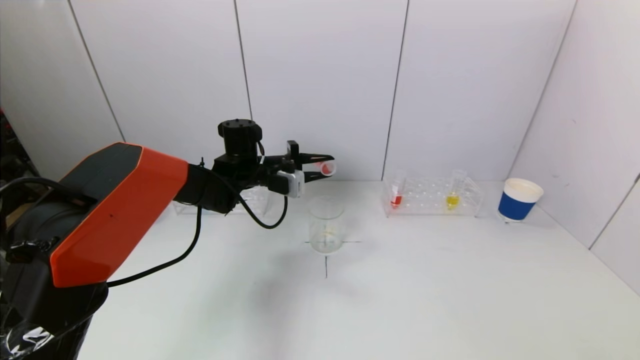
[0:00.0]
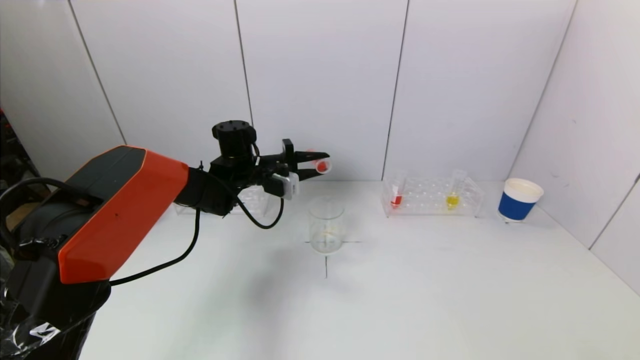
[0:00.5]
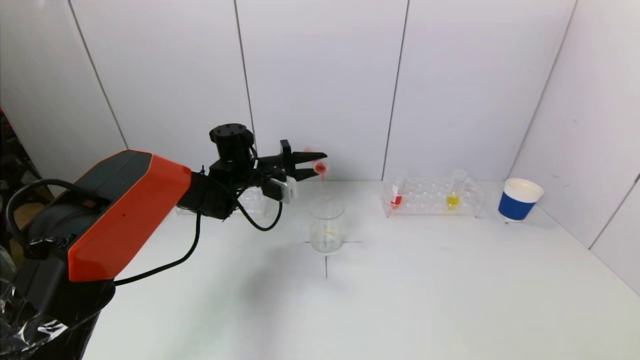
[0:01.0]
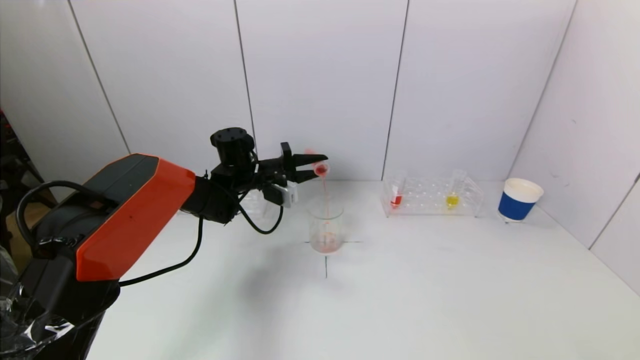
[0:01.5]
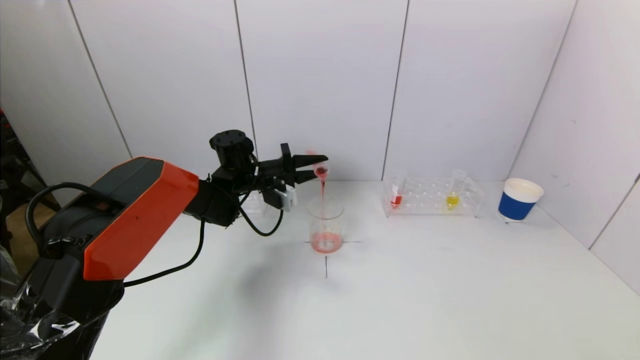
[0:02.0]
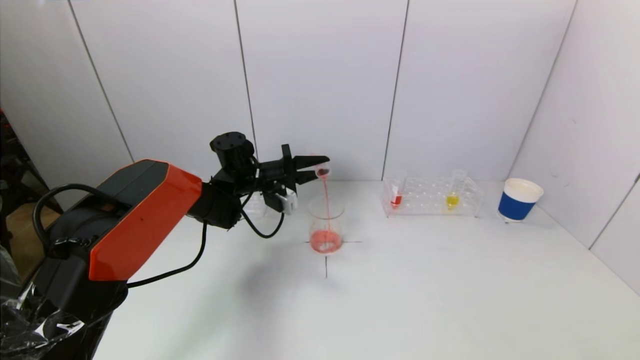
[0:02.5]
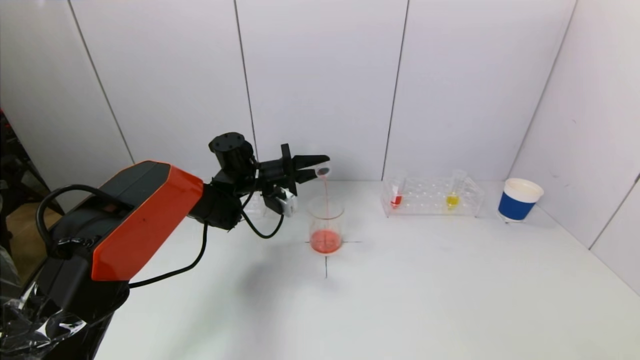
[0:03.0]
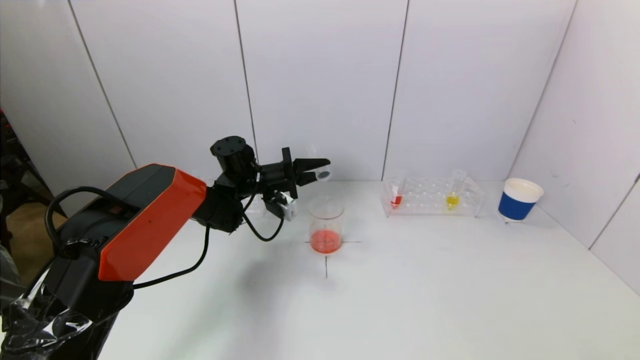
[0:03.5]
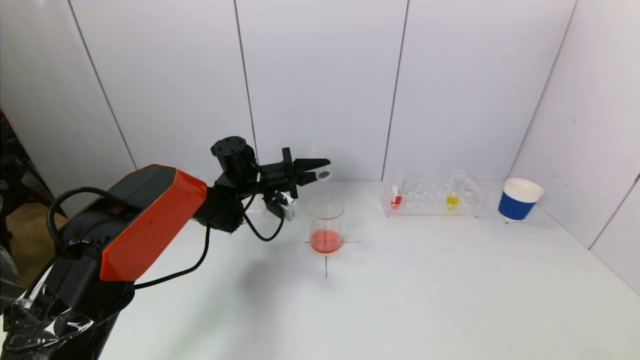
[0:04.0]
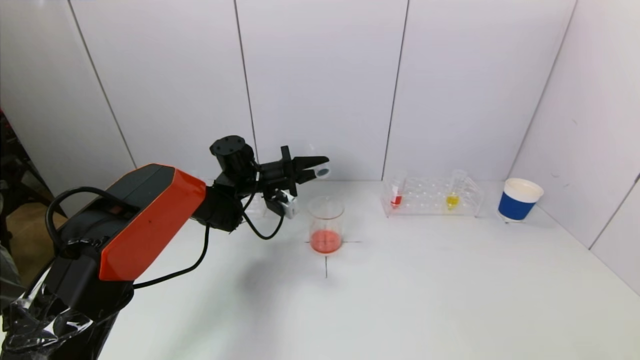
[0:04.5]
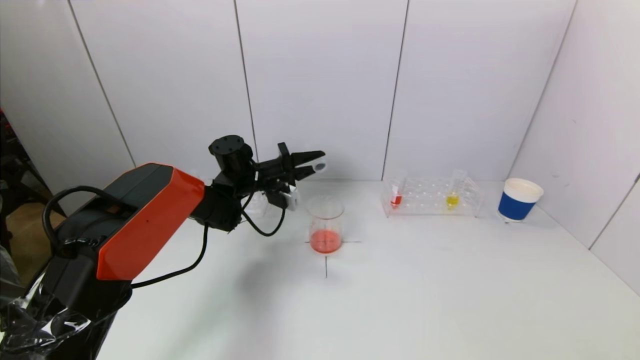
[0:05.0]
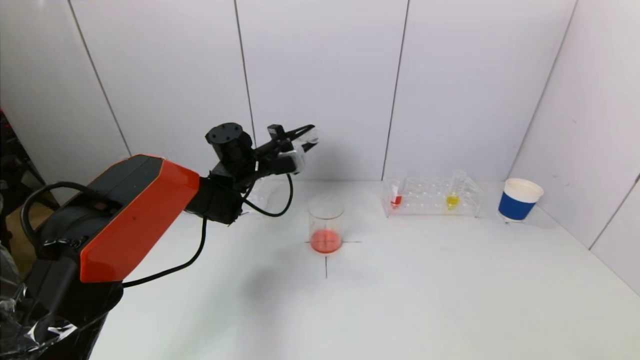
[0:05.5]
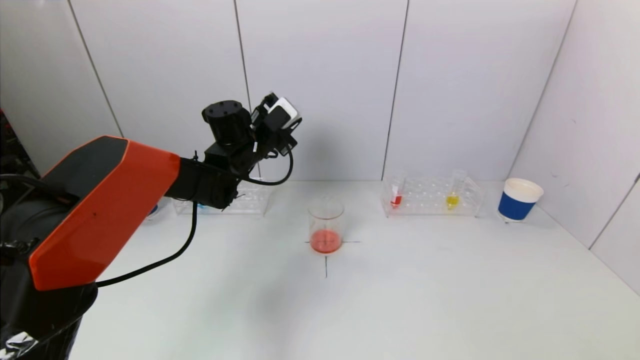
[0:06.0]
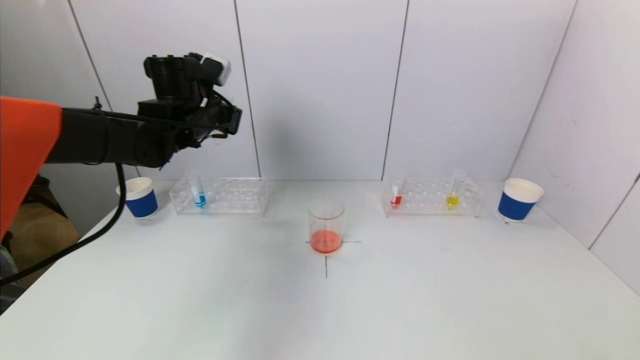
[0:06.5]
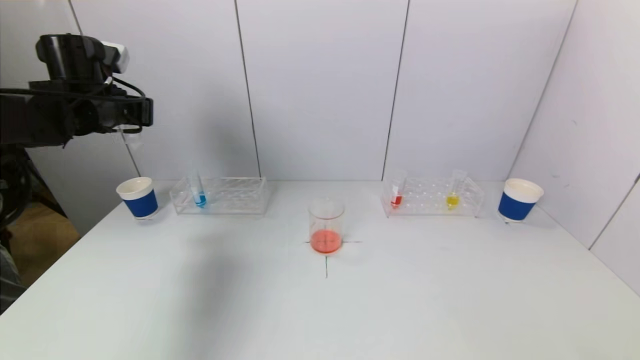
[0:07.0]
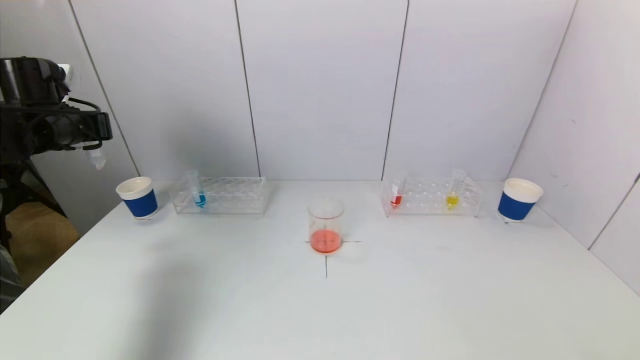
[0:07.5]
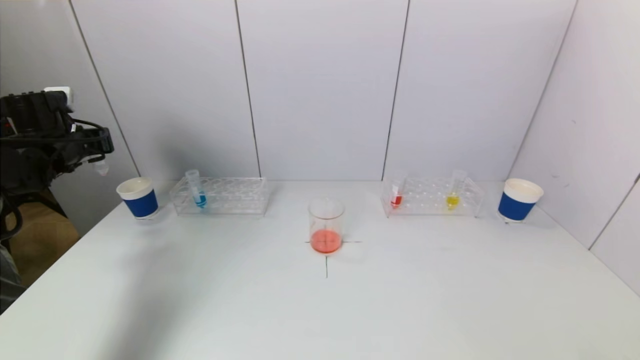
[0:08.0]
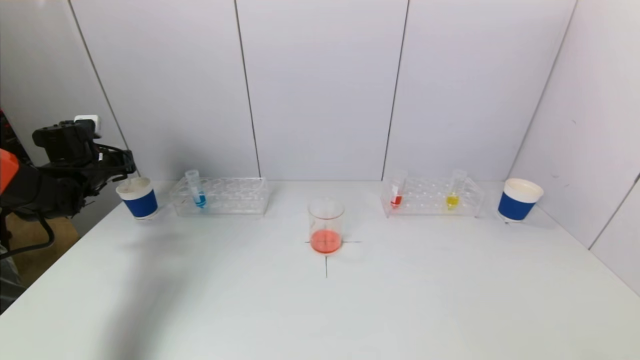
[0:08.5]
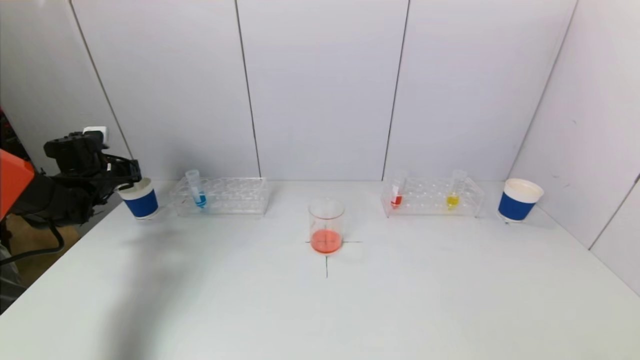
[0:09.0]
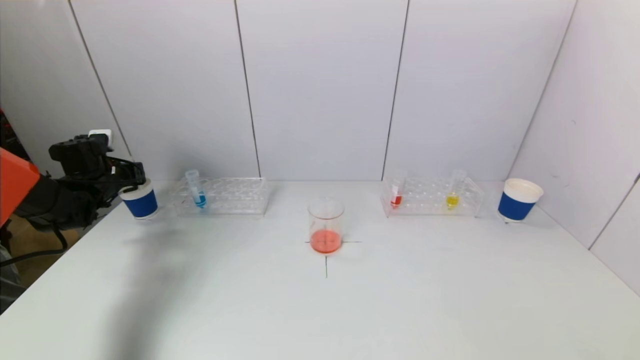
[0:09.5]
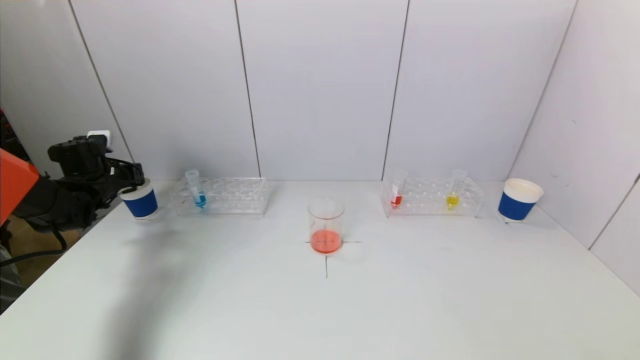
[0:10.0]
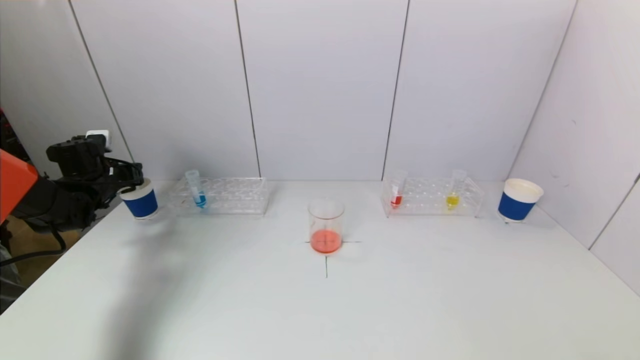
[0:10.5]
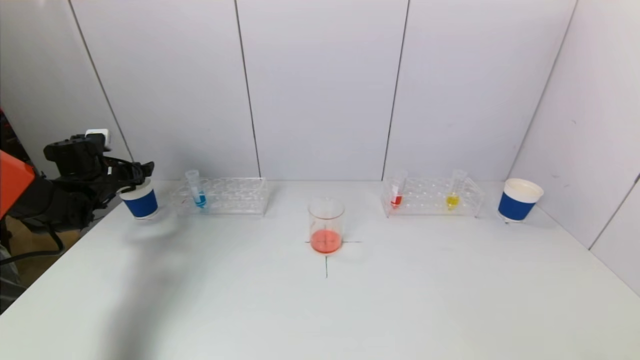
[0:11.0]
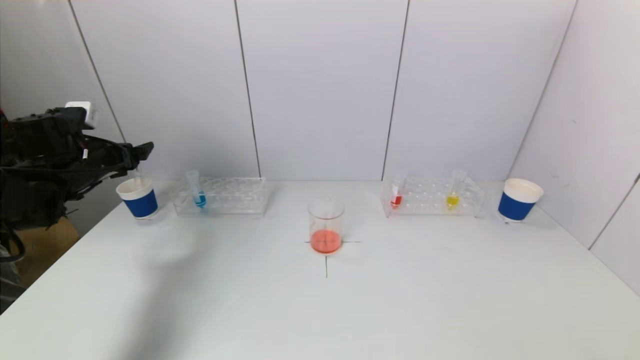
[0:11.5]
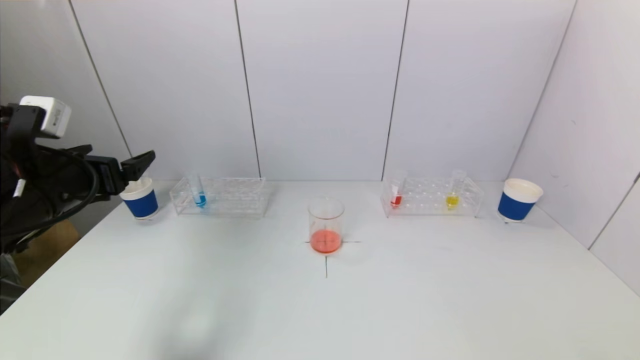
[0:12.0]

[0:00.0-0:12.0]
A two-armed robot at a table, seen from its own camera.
Task of the whole recording: pick up a test tube with pigment on left test tube rack and a test tube with pigment on right test tube rack by grippers and pour them into the beaker.
Step, 0:00.0 to 0:03.0: Pour the red reagent into the graduated cylinder with the left gripper.
Step, 0:03.5 to 0:10.5: Place the test tube into the paper cup with the left gripper.
0:00.0 to 0:02.0: There are only small adjustments of the grippers.
0:02.0 to 0:04.0: There are only small adjustments of the grippers.
0:04.0 to 0:06.0: The left gripper moves upward, about 10 cm.
0:06.0 to 0:08.0: The left gripper moves to the left, roughly 30 cm.
0:08.0 to 0:10.0: The left gripper goes approximately 10 cm downward.
0:10.0 to 0:12.0: The left gripper moves backward, to the right and upward, about 25 cm, and opens up.

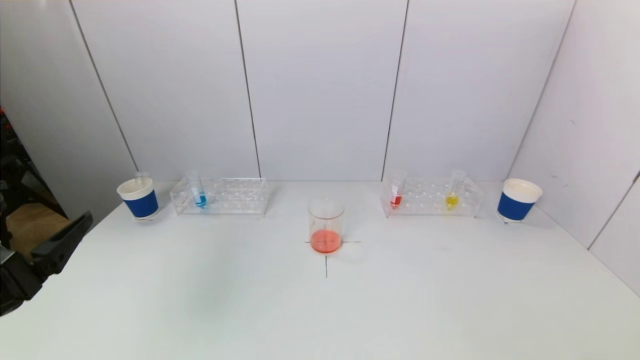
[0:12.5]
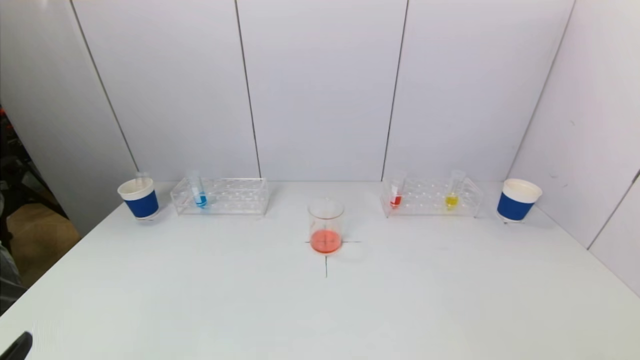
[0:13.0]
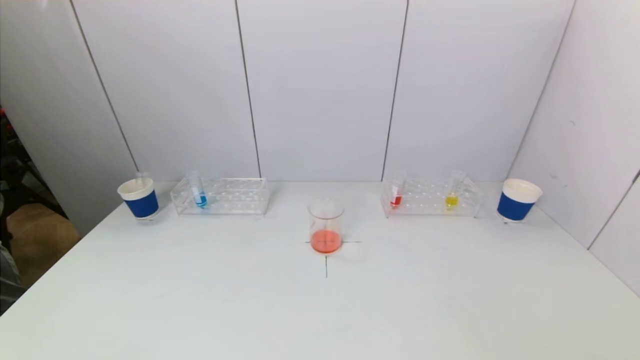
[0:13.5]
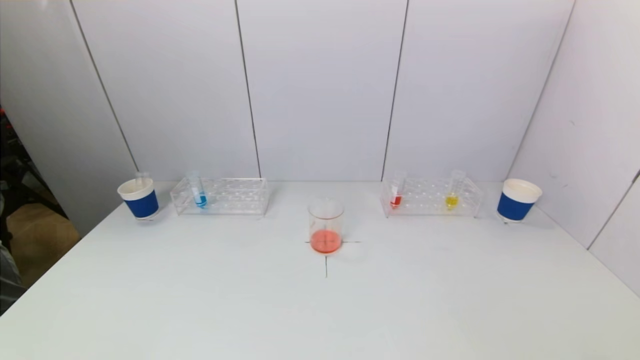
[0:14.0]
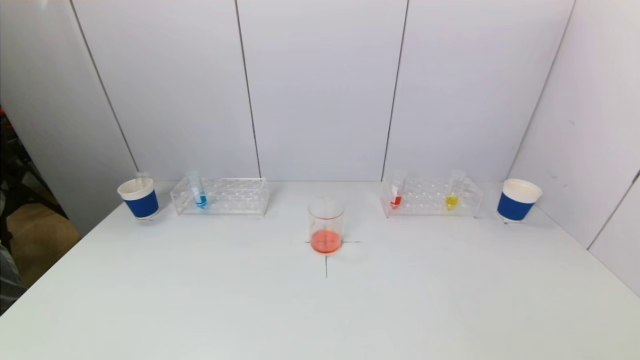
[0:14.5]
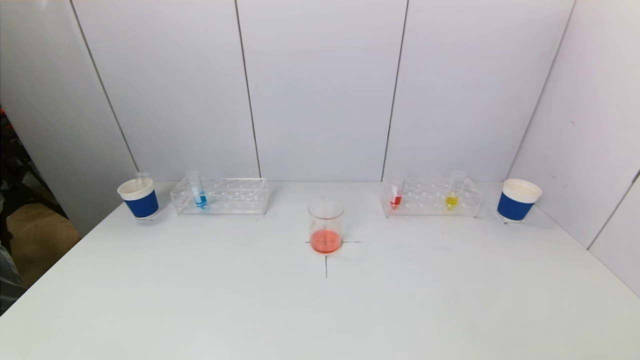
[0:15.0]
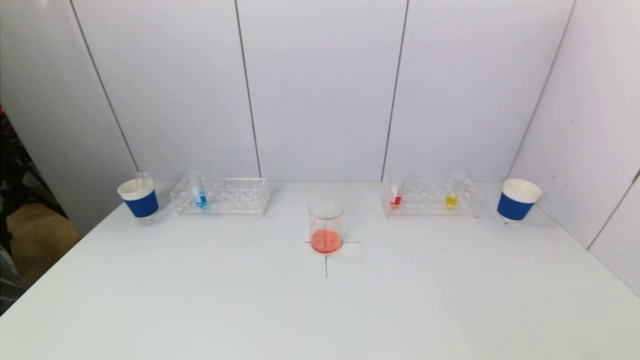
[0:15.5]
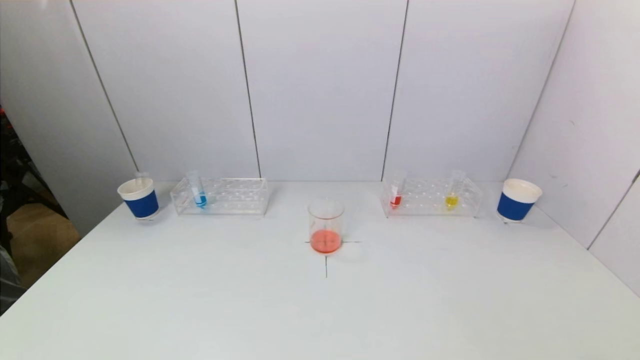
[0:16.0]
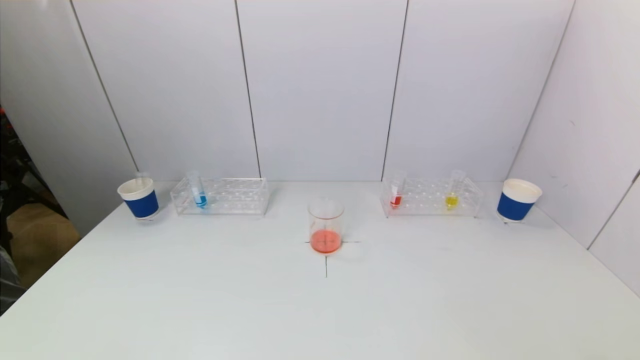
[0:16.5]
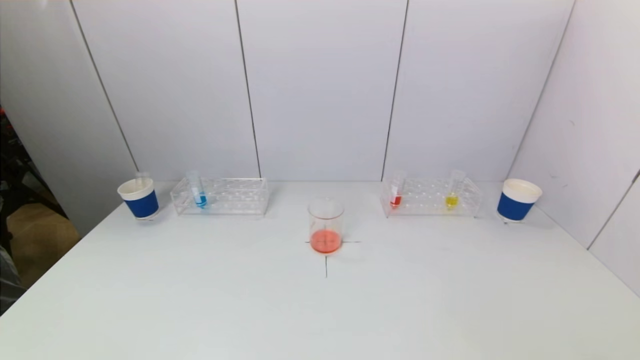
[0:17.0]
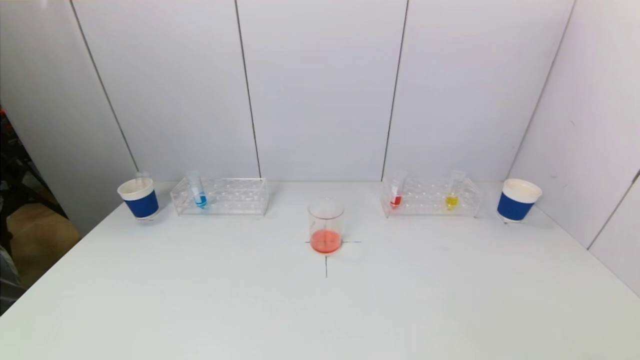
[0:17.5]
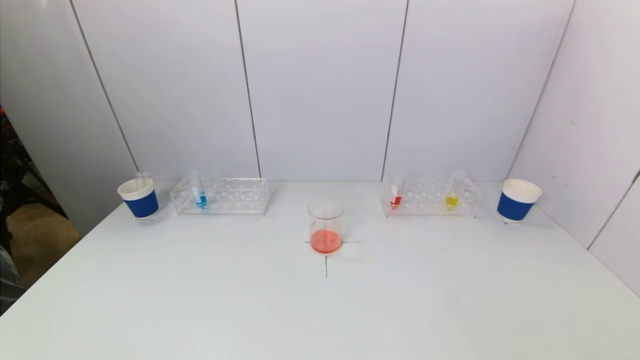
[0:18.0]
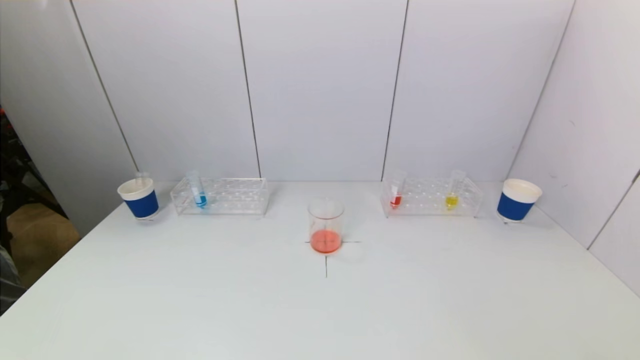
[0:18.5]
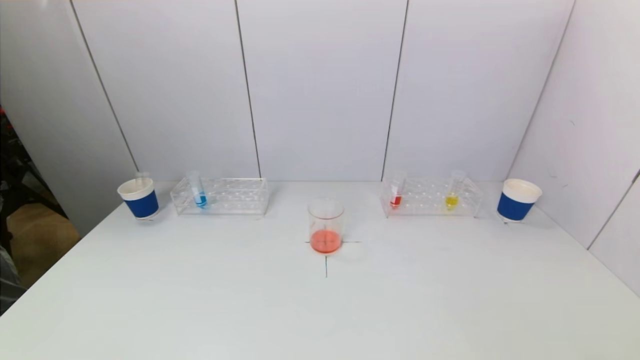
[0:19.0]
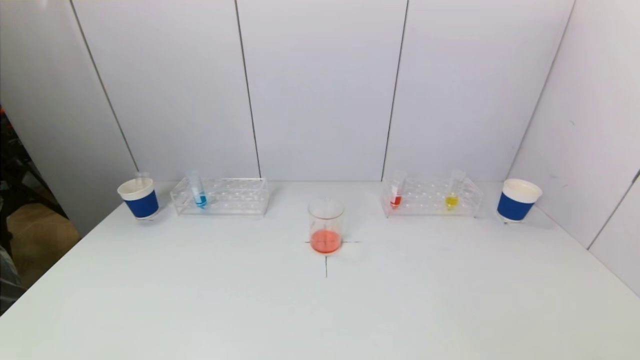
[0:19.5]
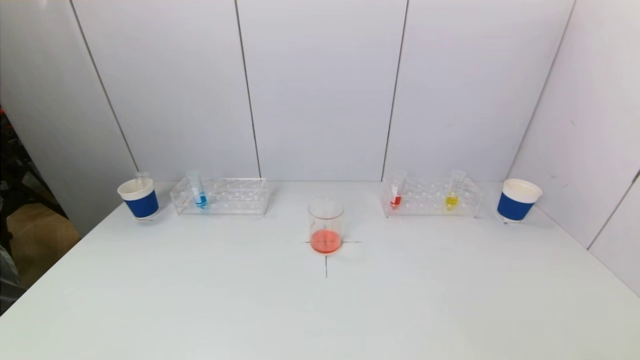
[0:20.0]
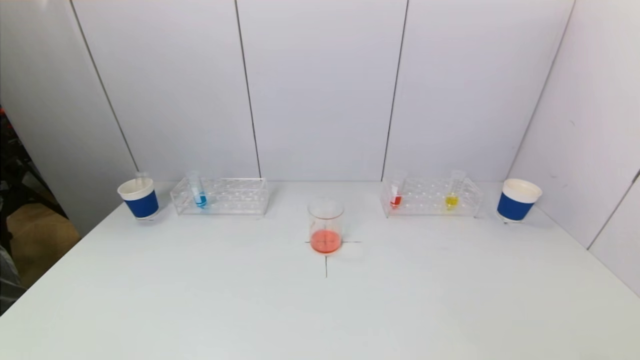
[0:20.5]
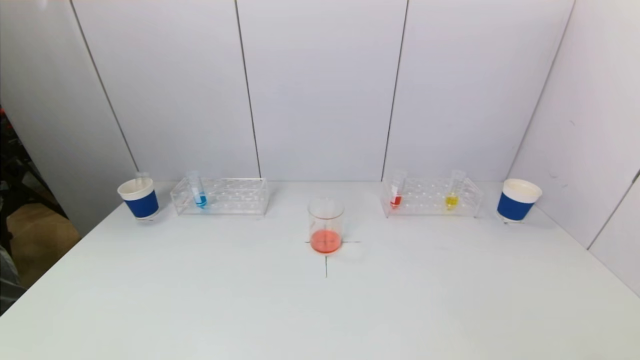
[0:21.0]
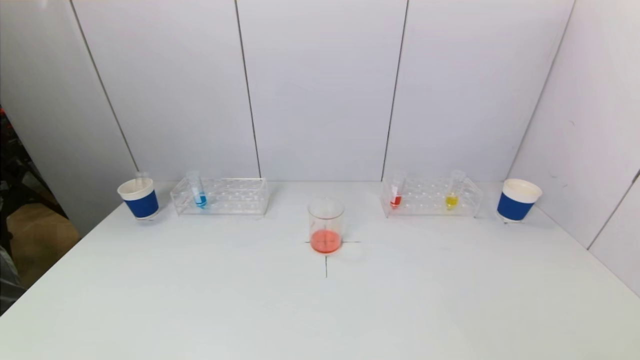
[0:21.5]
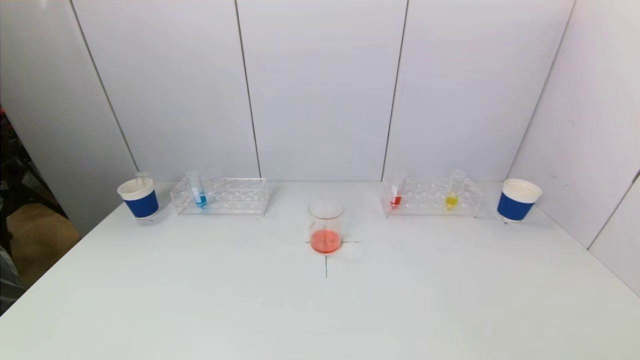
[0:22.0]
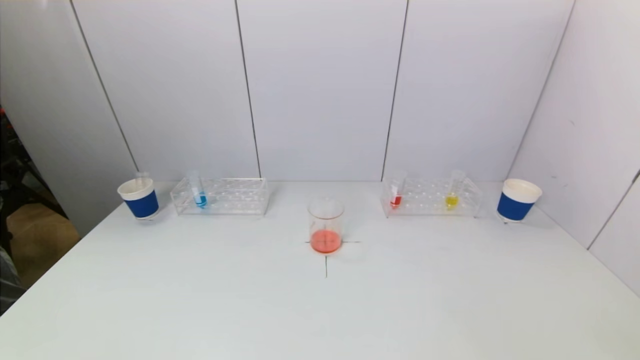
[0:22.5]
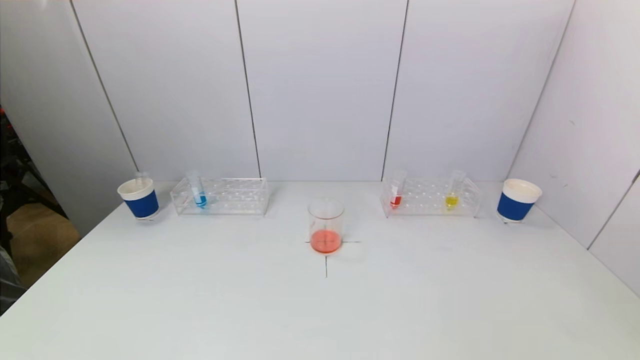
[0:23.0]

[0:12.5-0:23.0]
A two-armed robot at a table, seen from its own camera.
Task of the whole recording: pick up a test tube with pigment on left test tube rack and a test tube with pigment on right test tube rack by grippers and pour them into the beaker.
0:12.5 to 0:14.5: The left gripper moves downward and backward, approximately 20 cm.
0:16.5 to 0:21.0: The two grippers keep their place.
